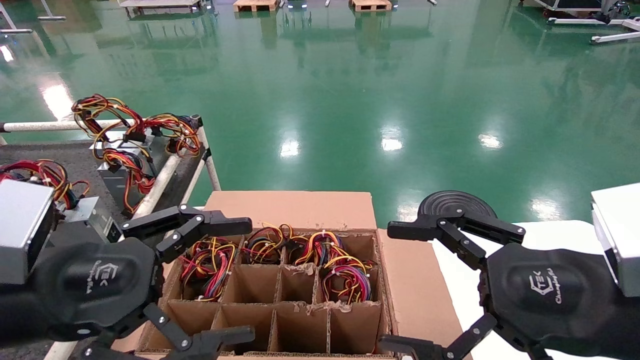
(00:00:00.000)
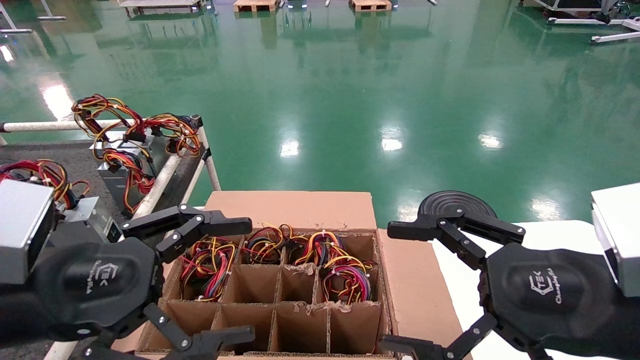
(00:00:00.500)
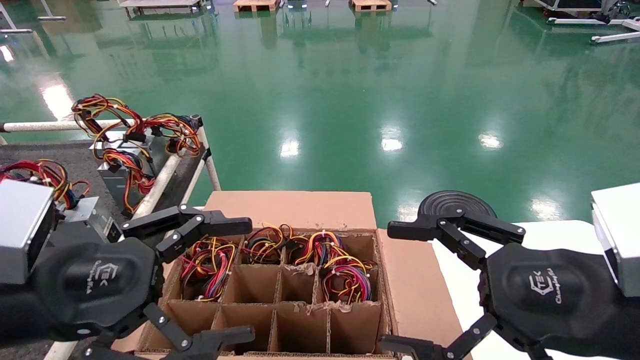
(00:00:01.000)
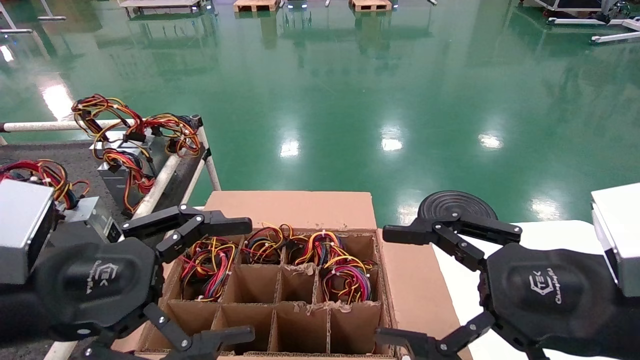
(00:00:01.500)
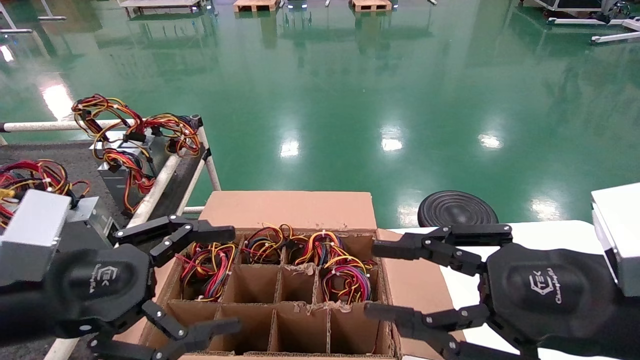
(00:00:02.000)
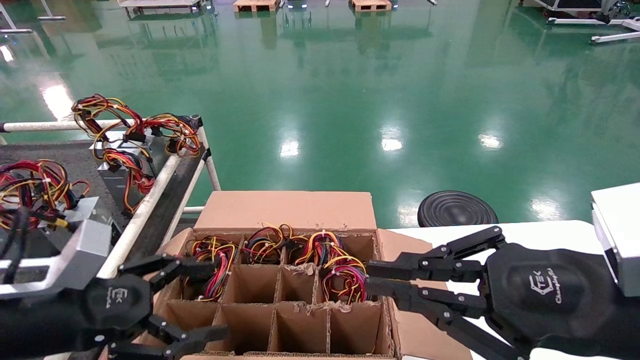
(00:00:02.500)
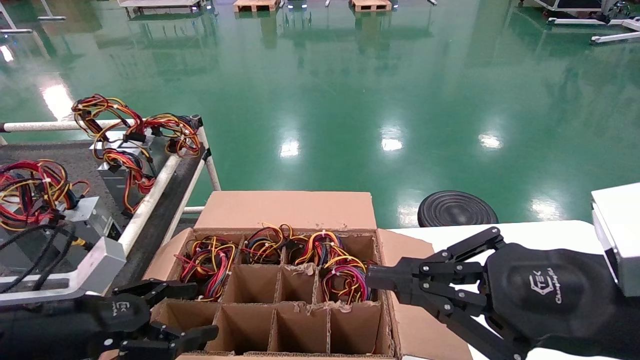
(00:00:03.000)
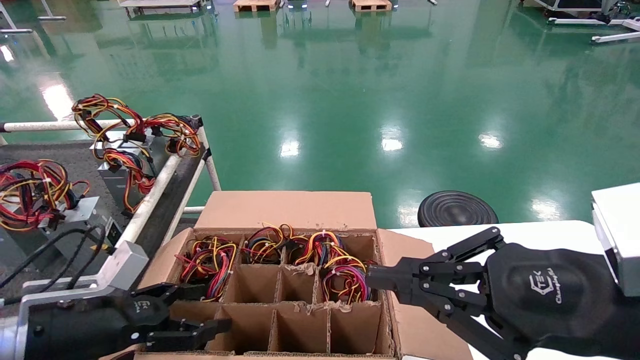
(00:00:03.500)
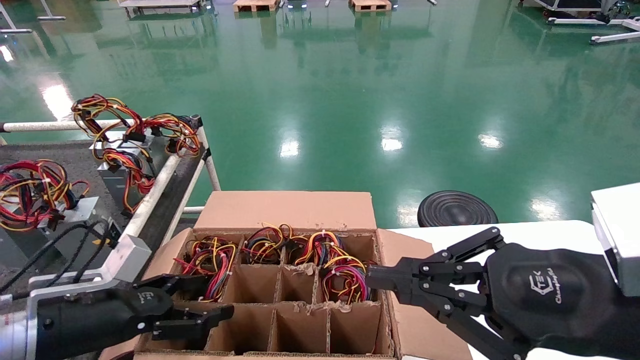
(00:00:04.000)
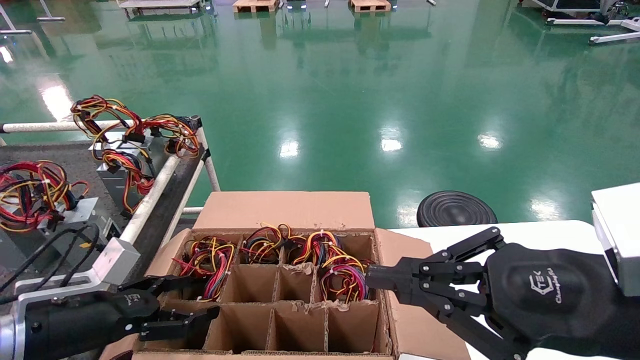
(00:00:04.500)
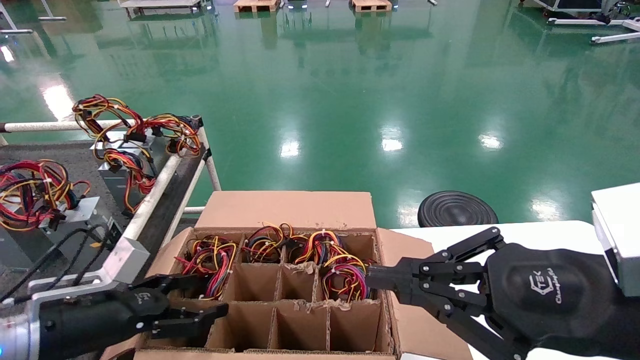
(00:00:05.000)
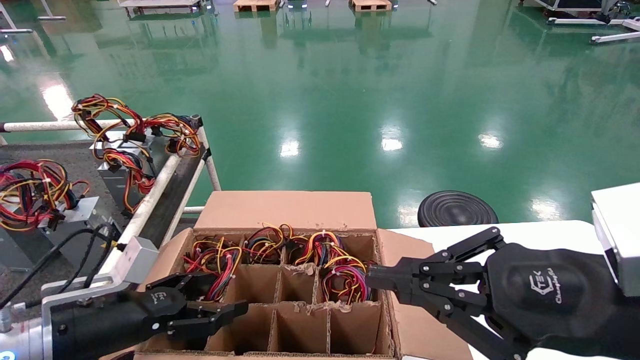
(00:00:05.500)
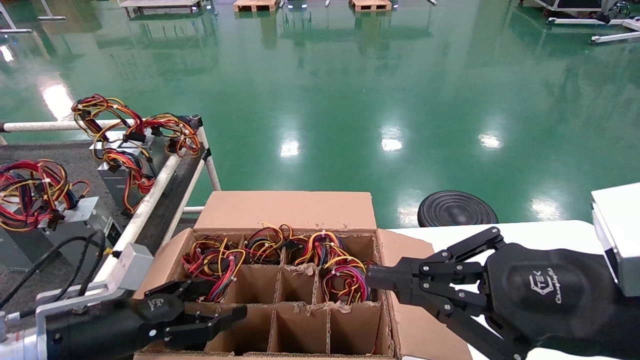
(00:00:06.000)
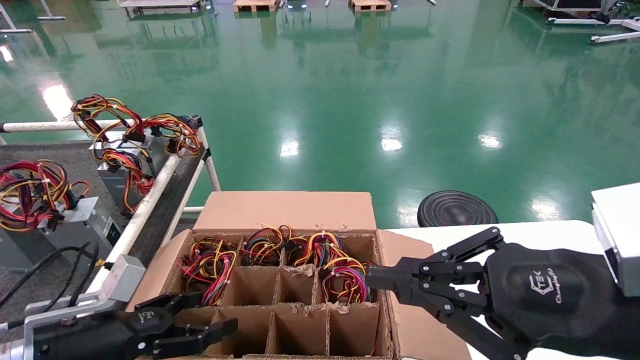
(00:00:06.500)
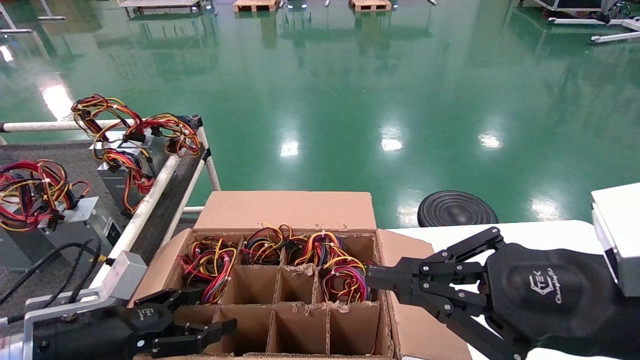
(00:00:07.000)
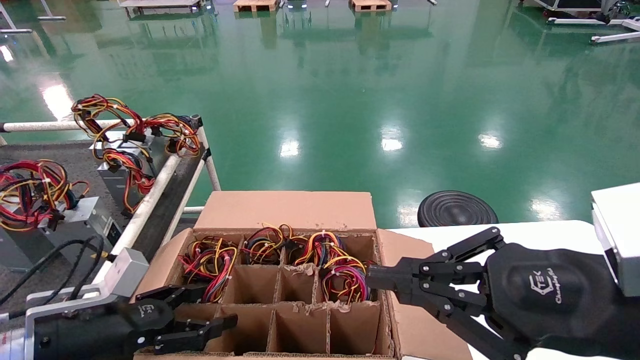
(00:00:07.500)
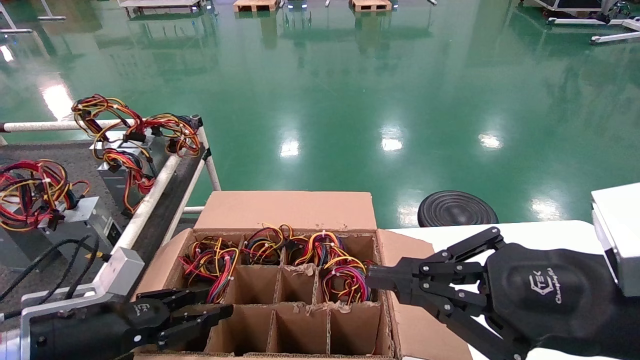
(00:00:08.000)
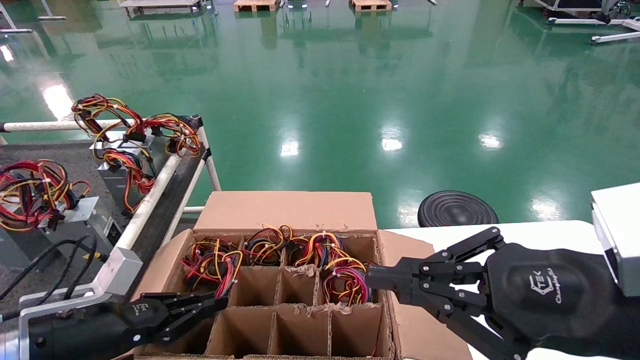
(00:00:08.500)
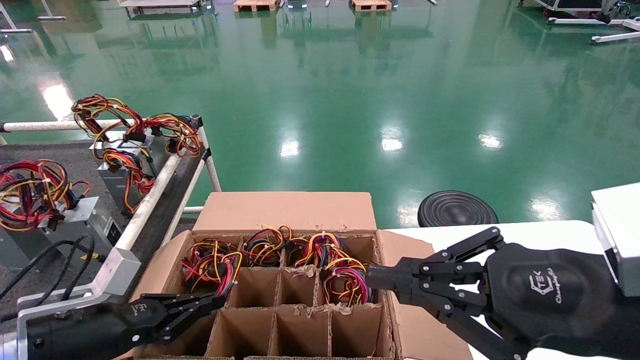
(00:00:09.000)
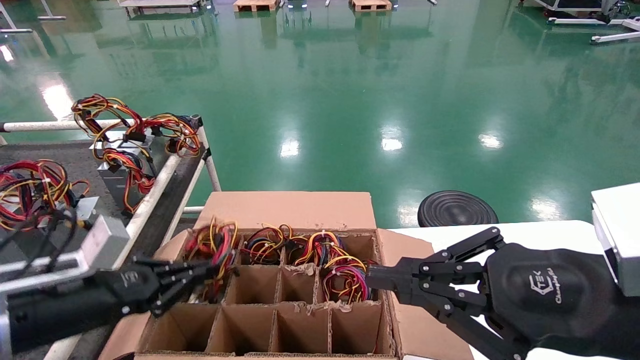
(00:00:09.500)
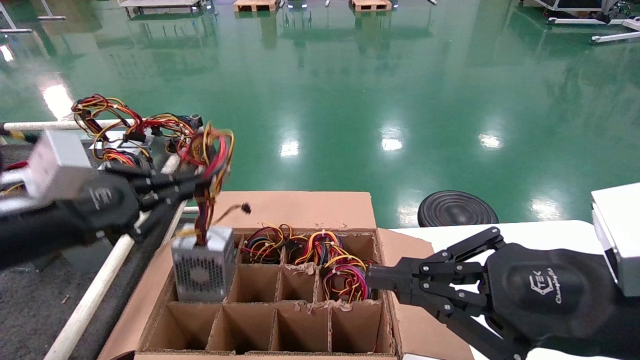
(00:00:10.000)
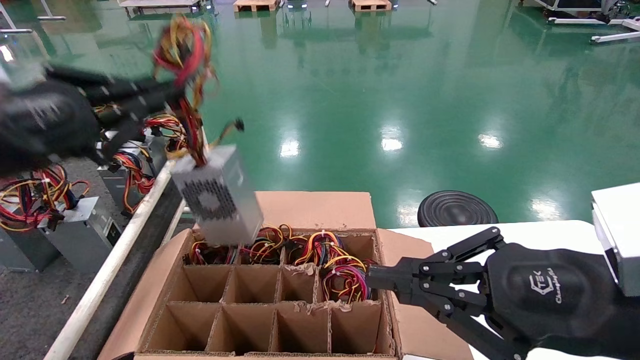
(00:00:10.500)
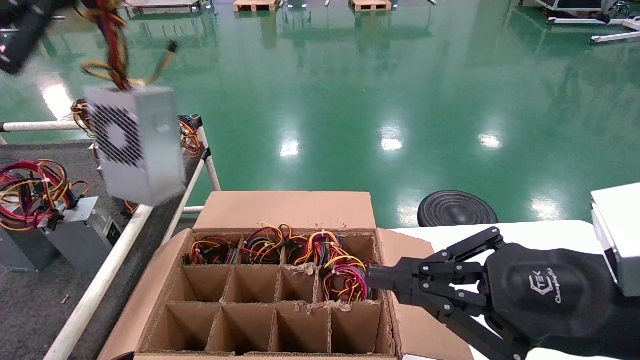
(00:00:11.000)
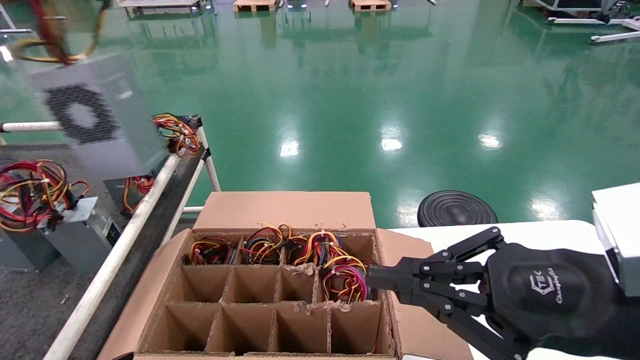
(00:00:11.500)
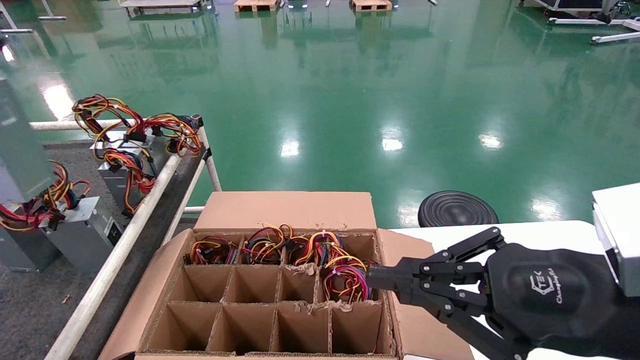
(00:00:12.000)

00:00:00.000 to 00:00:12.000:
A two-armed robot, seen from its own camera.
Step, 00:00:02.500 to 00:00:08.500: Grab and lift the power supply from the large box.
00:00:00.000 to 00:00:02.000: There are only small adjustments of the grippers.
00:00:02.000 to 00:00:04.000: The left gripper shifts some 15 cm downward and forward. The right gripper closes up.
00:00:04.000 to 00:00:06.000: The grippers stay close to where they were, moving slightly.
00:00:06.000 to 00:00:08.000: The two grippers keep their place.
00:00:08.000 to 00:00:10.000: The left gripper goes about 15 cm upward, and closes.
00:00:10.000 to 00:00:12.000: The left gripper goes approximately 25 cm upward, backward and to the left.

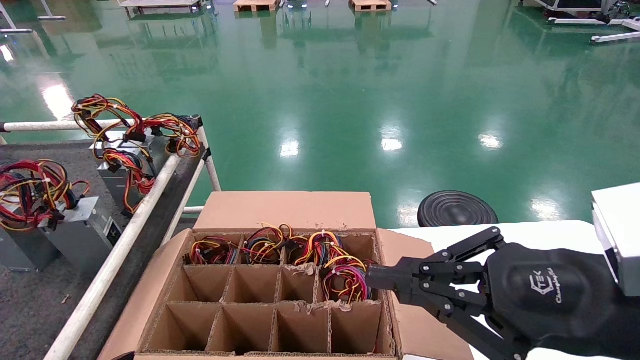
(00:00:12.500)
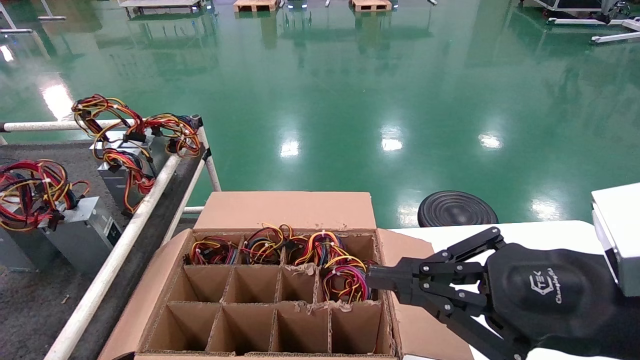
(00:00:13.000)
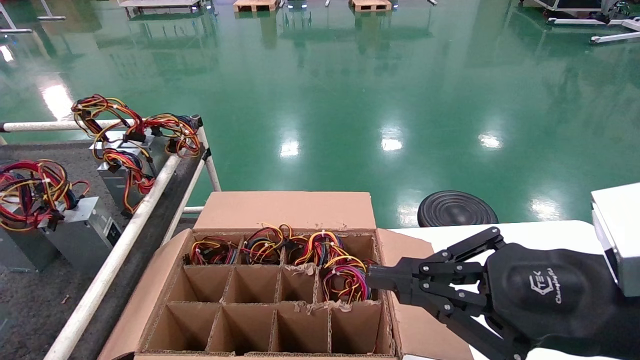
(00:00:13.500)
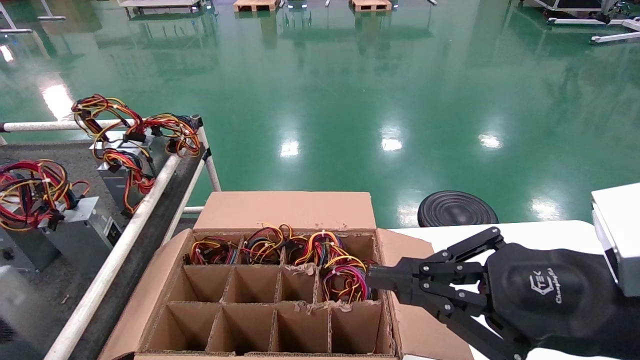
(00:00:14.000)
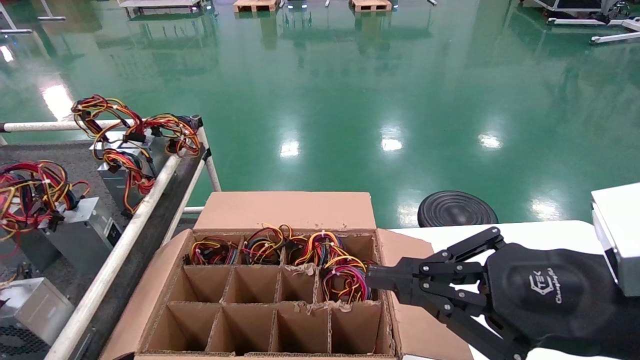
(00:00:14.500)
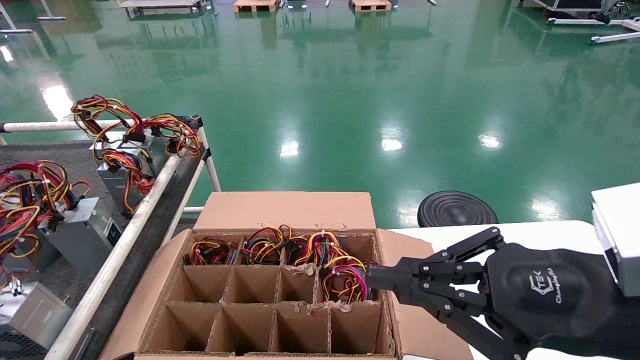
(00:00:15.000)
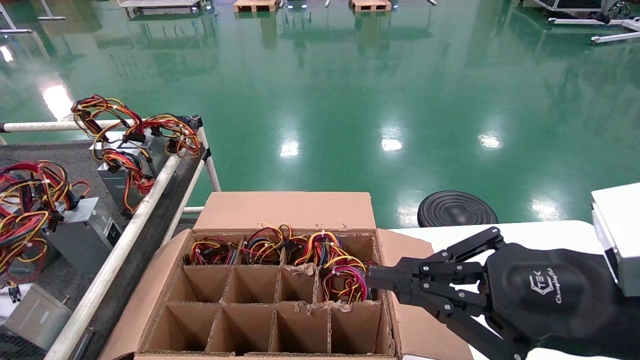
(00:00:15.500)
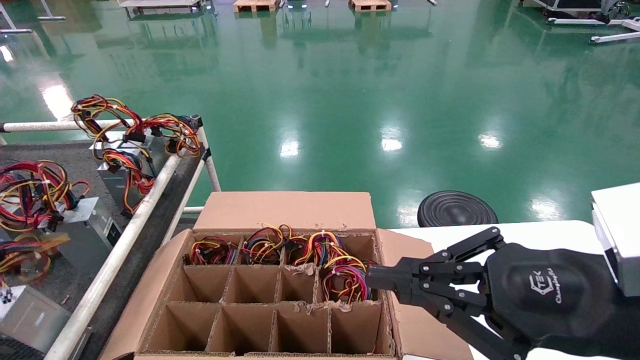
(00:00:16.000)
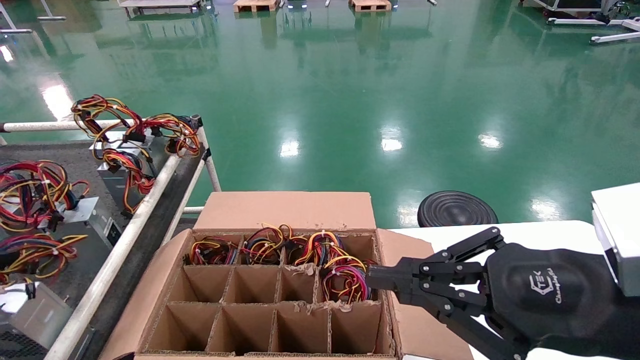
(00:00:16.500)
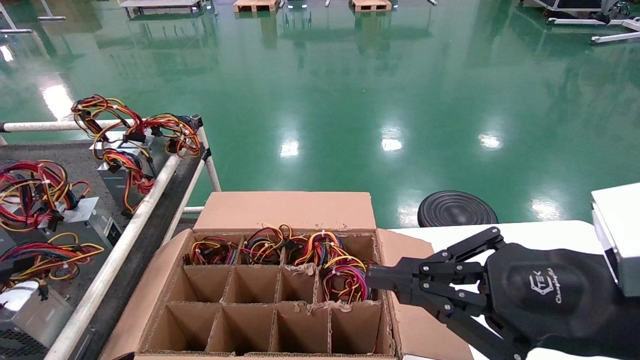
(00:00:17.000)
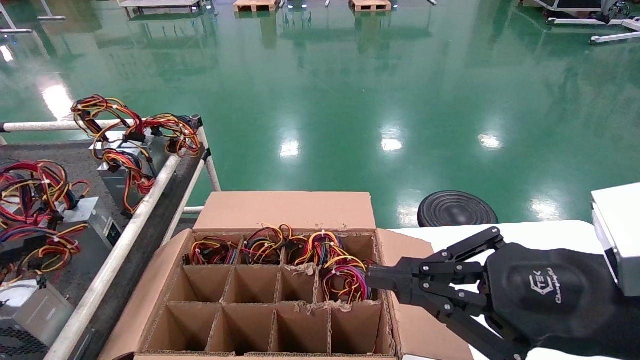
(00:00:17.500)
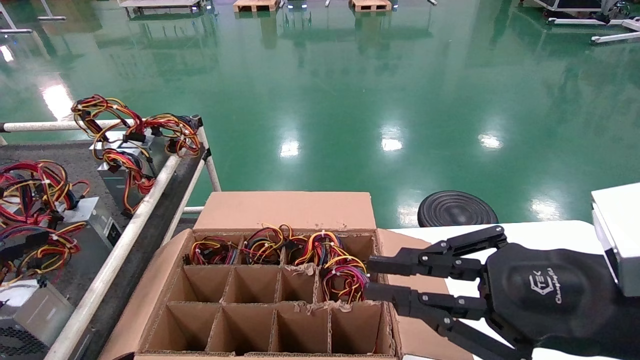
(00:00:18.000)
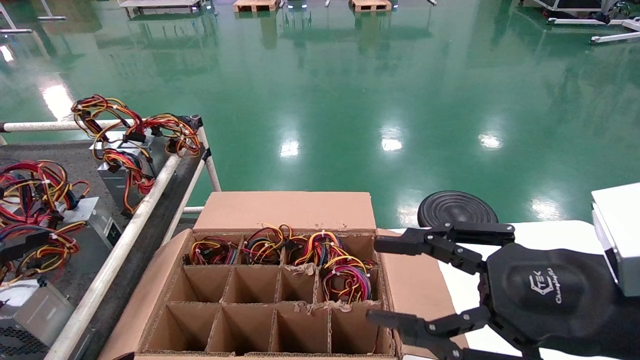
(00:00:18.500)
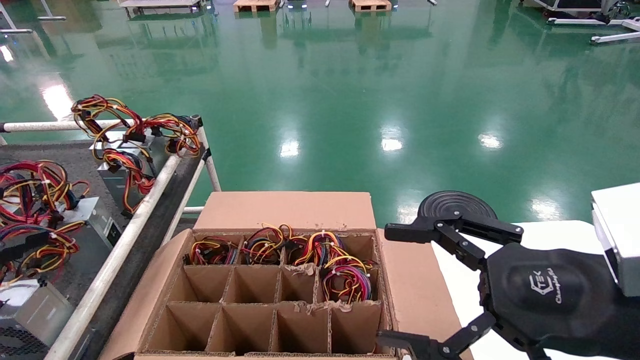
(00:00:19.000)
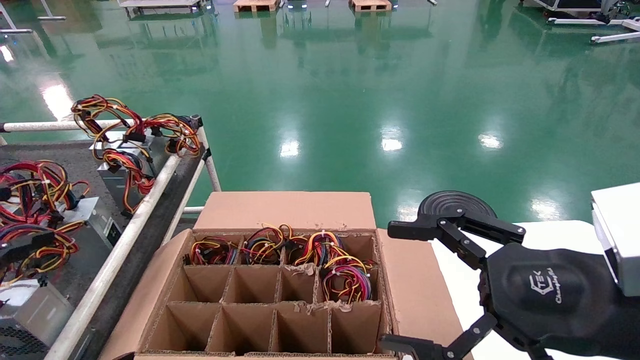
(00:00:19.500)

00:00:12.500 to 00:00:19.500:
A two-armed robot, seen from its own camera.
Step, 00:00:12.500 to 00:00:16.500: Place the power supply on the operating table.
00:00:12.500 to 00:00:14.500: The left gripper travels downward by roughly 15 cm.
00:00:14.500 to 00:00:16.000: There are only small adjustments of the grippers.
00:00:16.000 to 00:00:17.500: The left gripper opens its fingers.
00:00:17.500 to 00:00:19.500: The right gripper opens.
